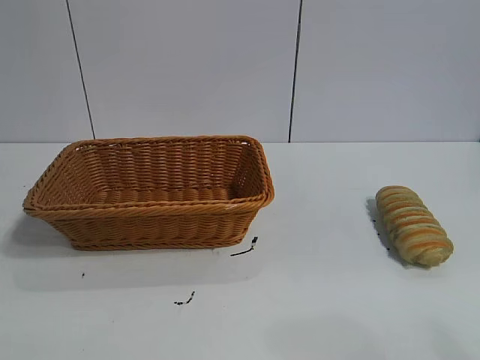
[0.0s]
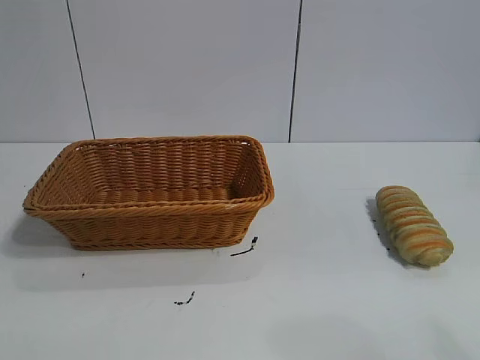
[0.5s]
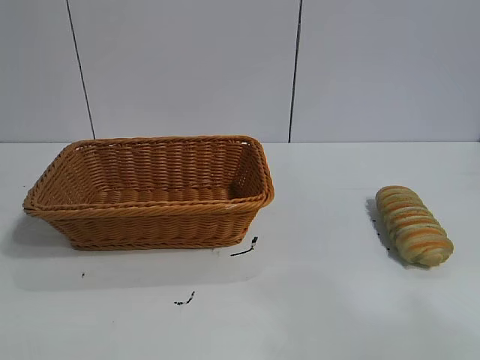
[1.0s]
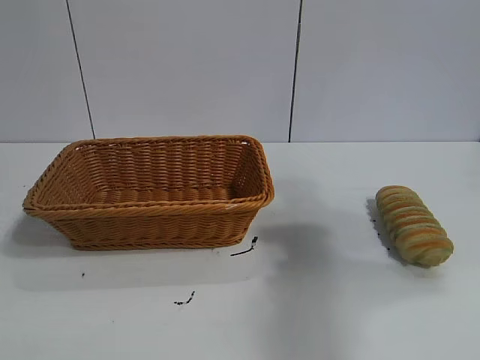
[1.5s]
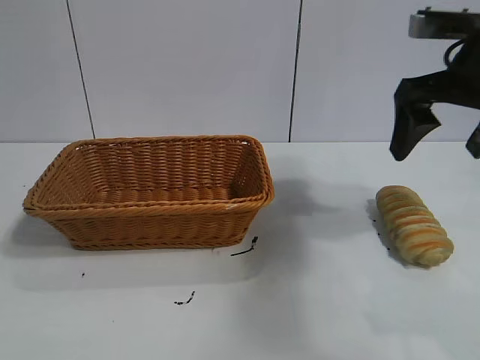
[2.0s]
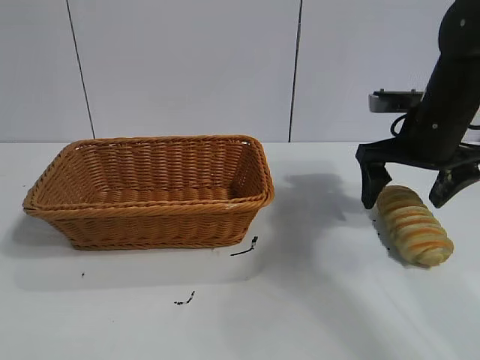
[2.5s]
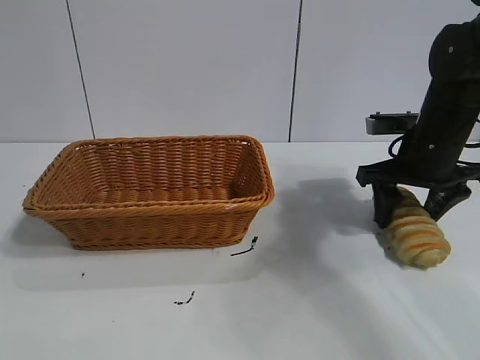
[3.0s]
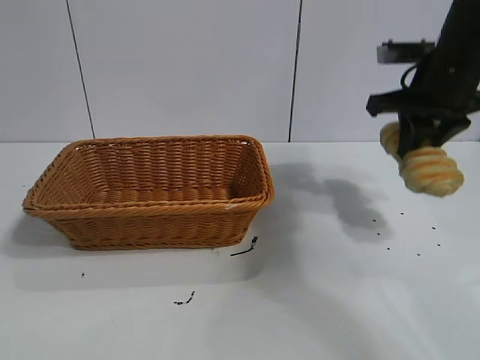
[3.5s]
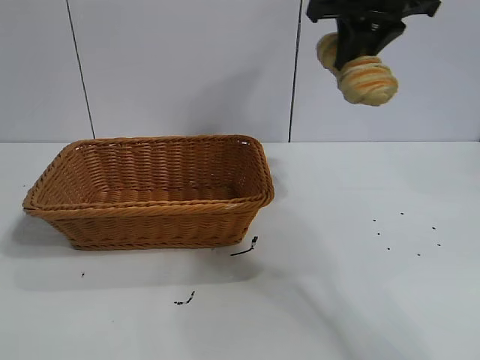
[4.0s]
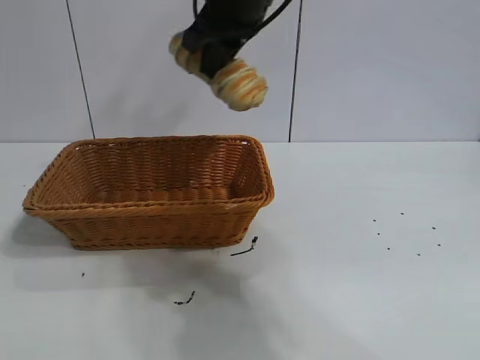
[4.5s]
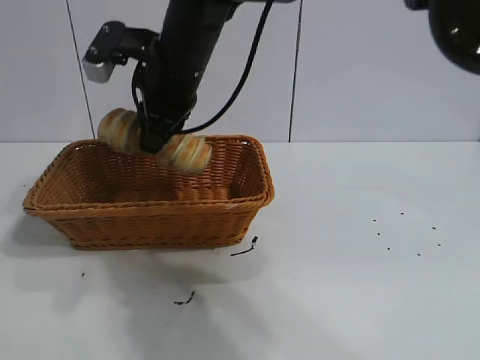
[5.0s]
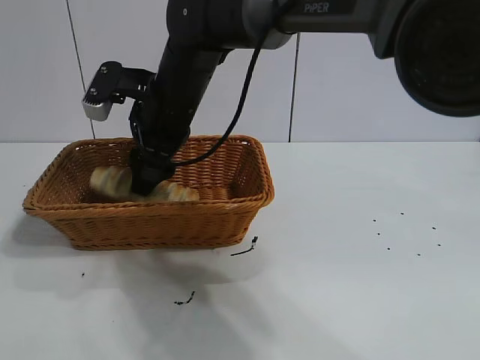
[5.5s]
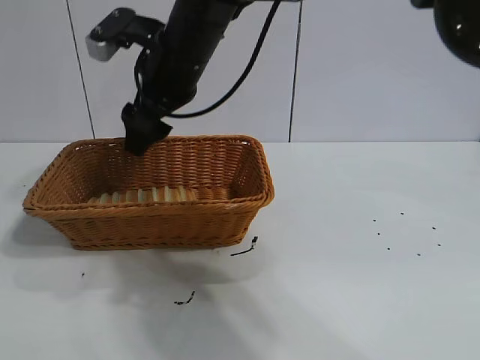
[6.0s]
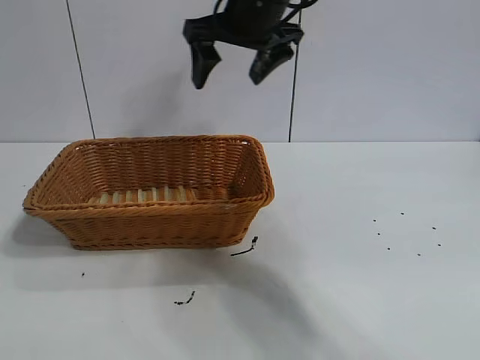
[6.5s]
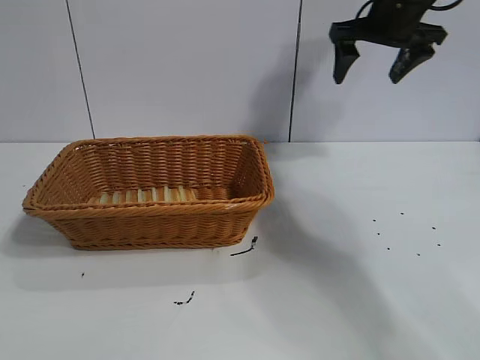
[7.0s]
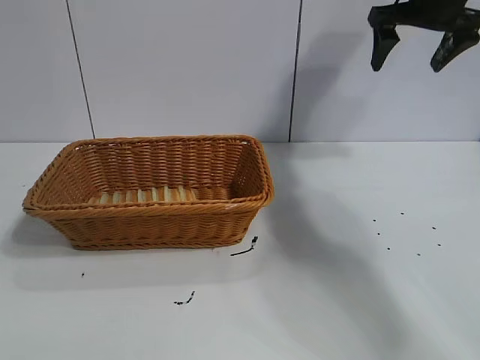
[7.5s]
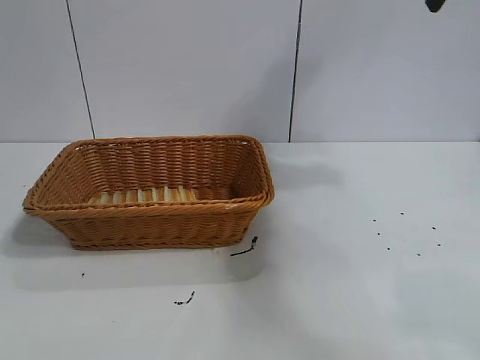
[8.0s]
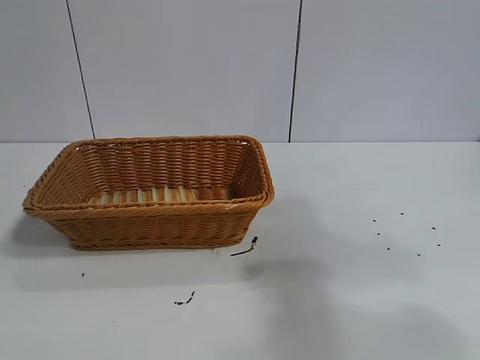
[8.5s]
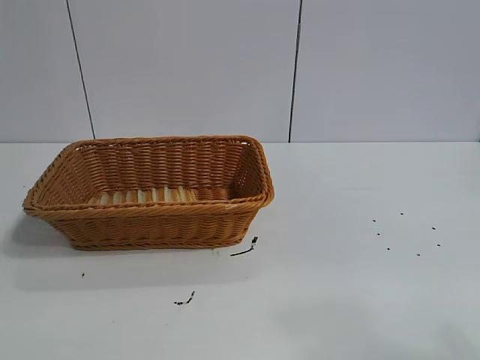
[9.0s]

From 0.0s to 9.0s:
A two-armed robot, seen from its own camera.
Task of the whole recording: pick up the long bread and put it into the basket.
Step, from 2.0s to 3.0s: Grasp the long bread with right gripper.
Step, from 3.5s to 5.5s: Place the long bread in the basket with right gripper.

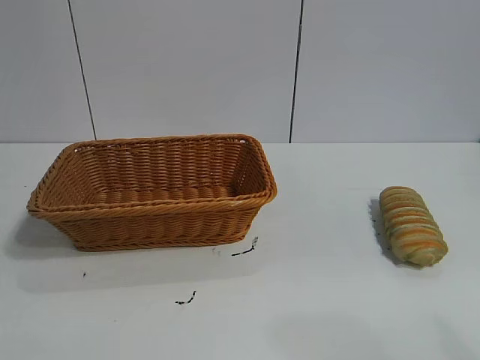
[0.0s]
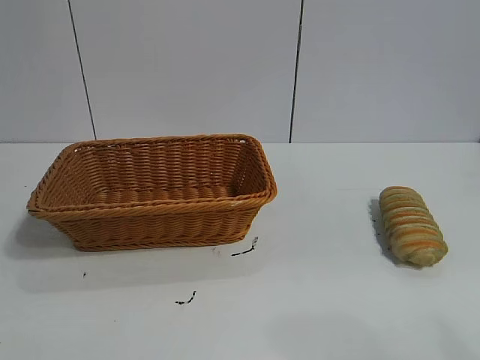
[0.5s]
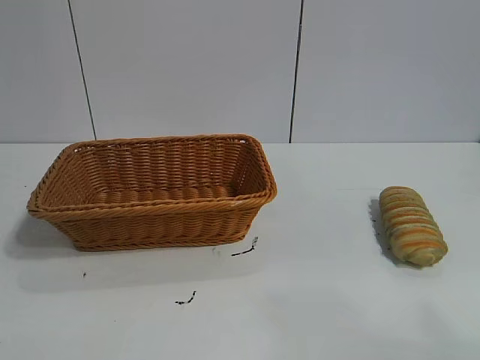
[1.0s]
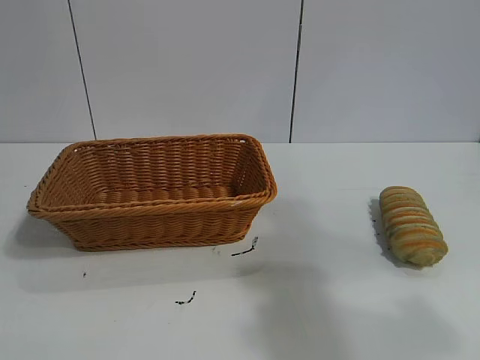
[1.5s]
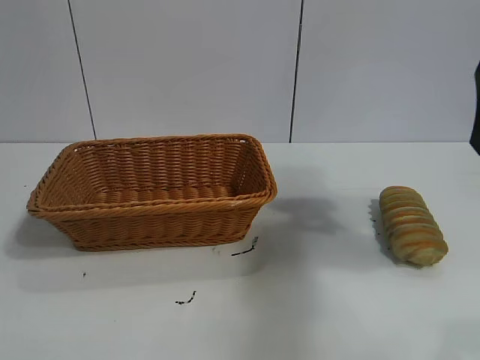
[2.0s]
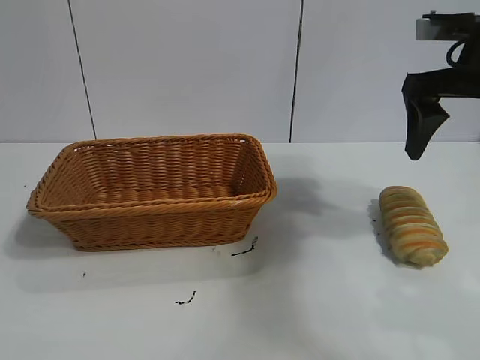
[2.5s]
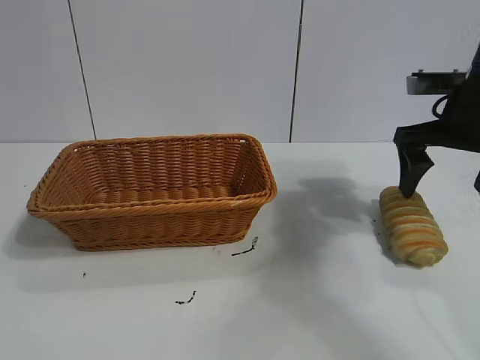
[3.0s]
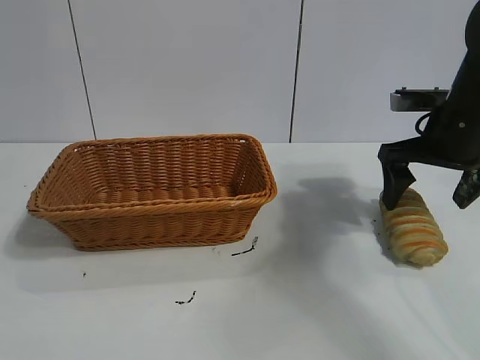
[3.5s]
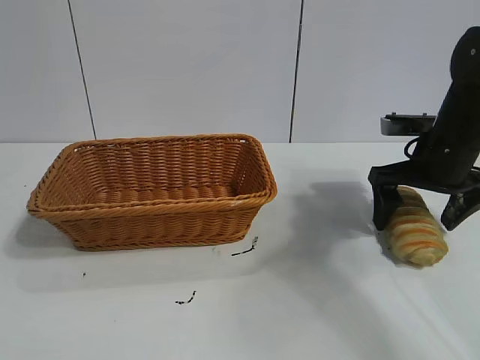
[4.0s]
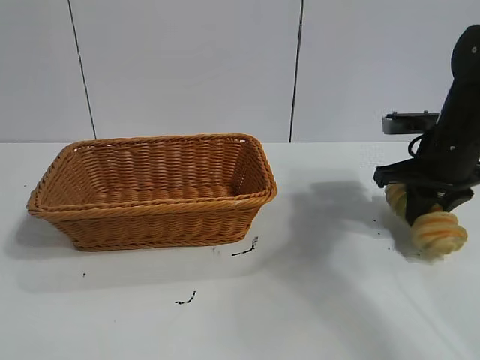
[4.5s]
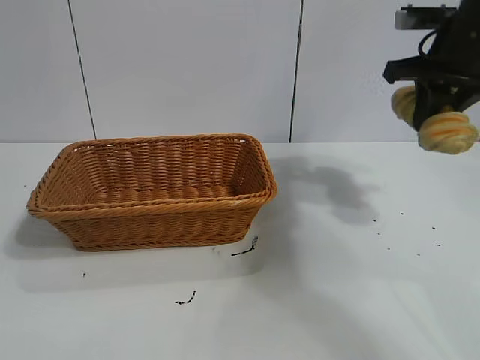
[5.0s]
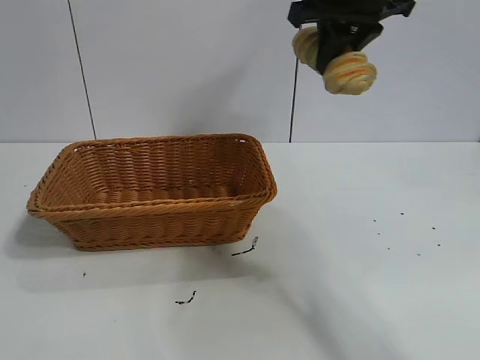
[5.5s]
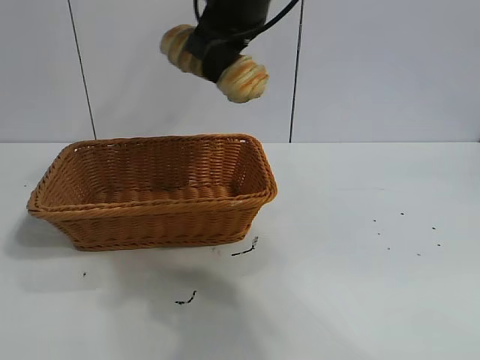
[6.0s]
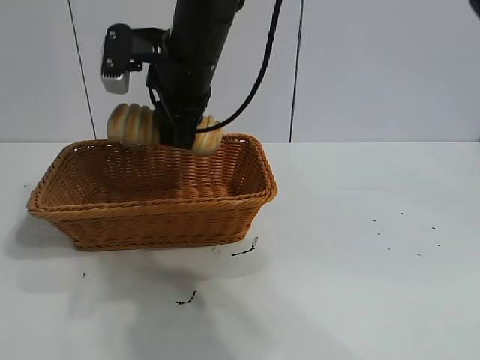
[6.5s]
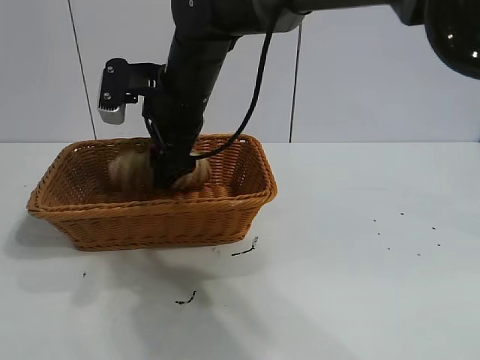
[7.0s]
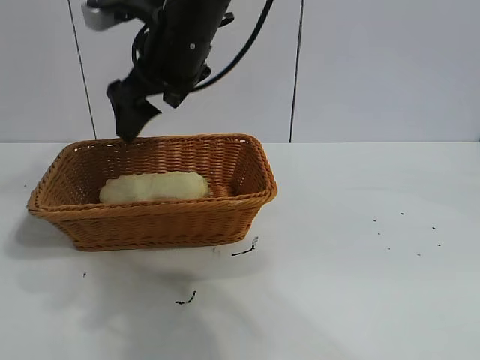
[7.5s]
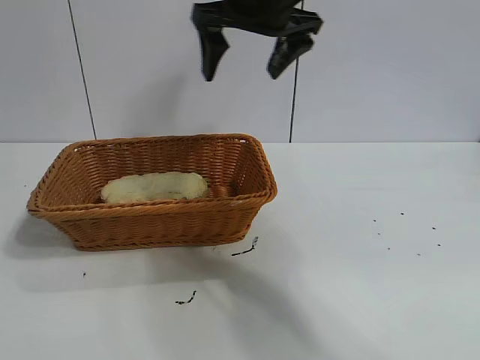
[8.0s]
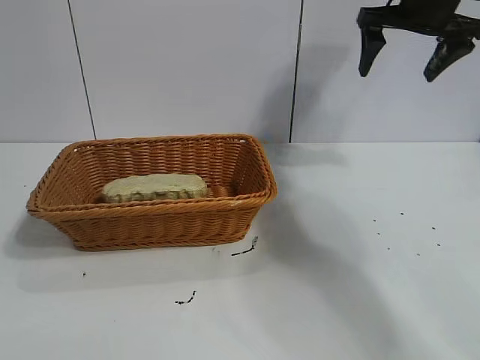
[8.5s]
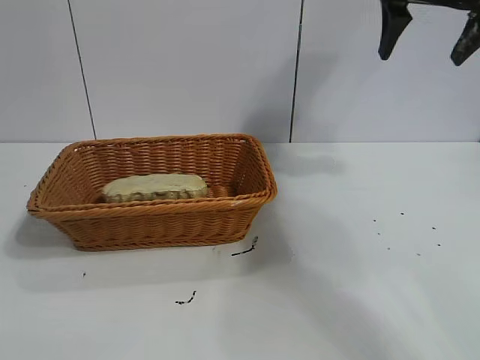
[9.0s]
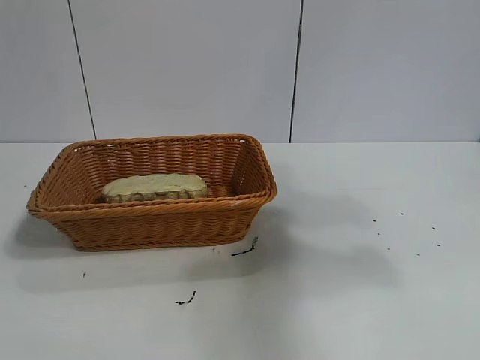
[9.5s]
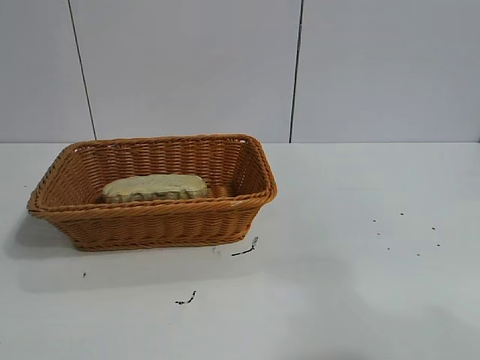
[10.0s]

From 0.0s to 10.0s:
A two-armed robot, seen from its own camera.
Task of the whole recording: pick up the long bread and put it into the basket.
Step, from 2.0s to 4.0s: Grasp the long bread with right gripper.
Step, from 5.0s to 7.0s: Place the long bread in the basket with right gripper.
